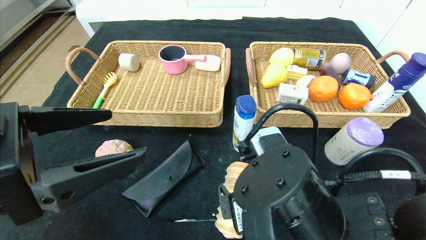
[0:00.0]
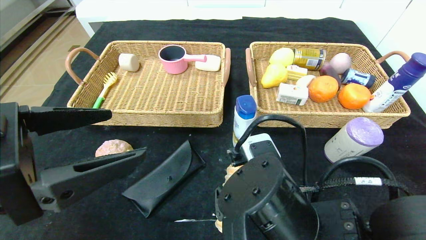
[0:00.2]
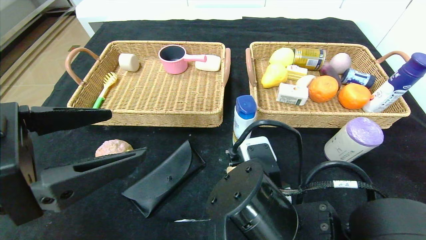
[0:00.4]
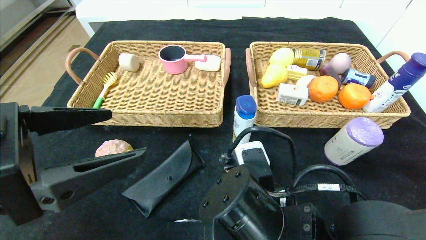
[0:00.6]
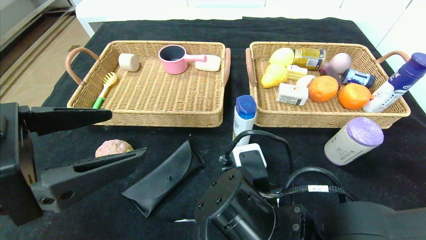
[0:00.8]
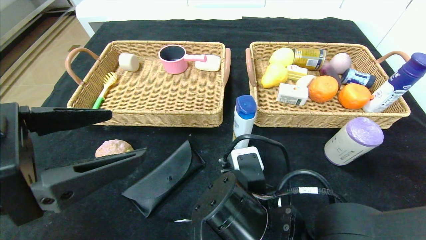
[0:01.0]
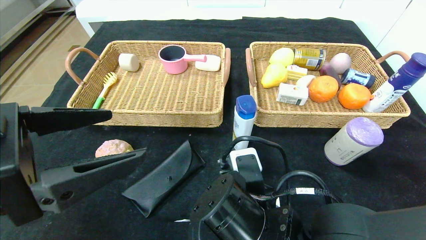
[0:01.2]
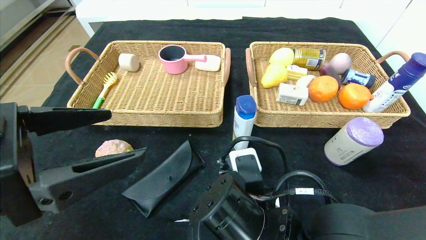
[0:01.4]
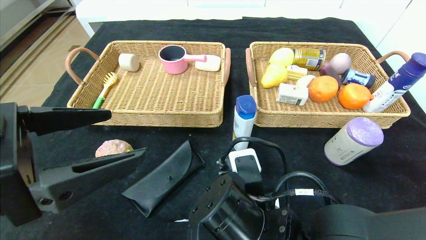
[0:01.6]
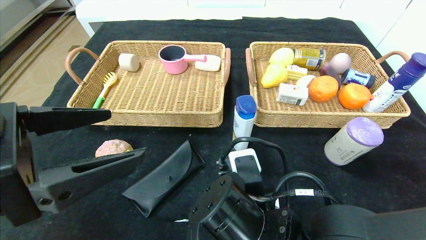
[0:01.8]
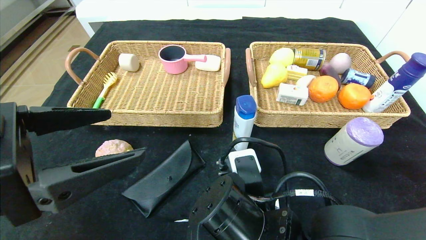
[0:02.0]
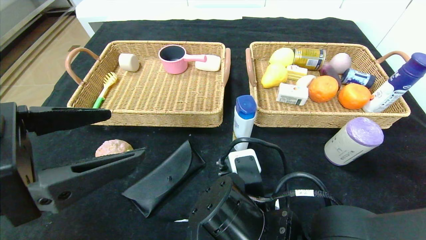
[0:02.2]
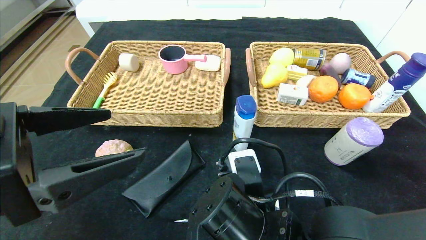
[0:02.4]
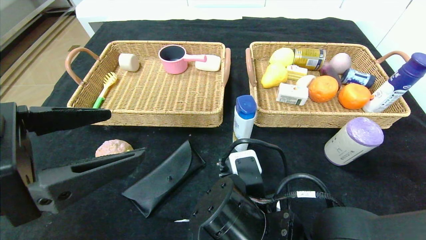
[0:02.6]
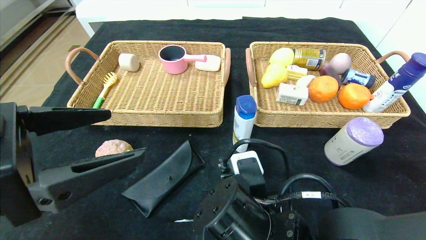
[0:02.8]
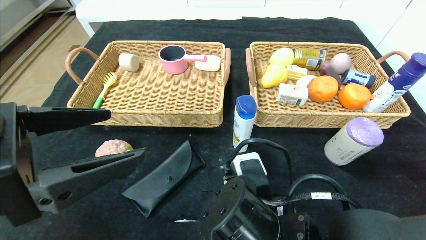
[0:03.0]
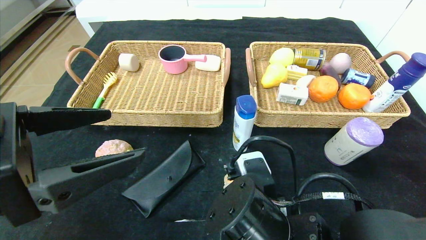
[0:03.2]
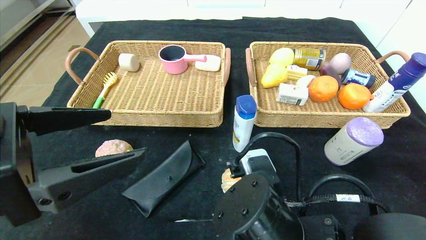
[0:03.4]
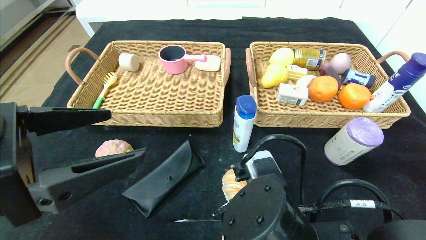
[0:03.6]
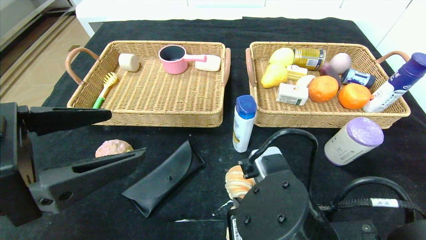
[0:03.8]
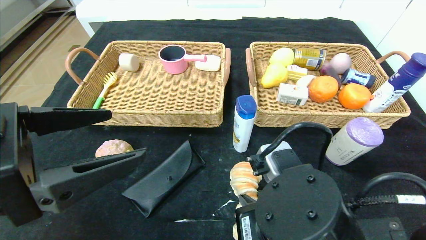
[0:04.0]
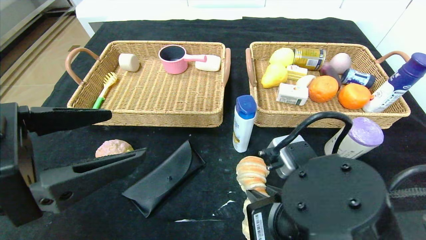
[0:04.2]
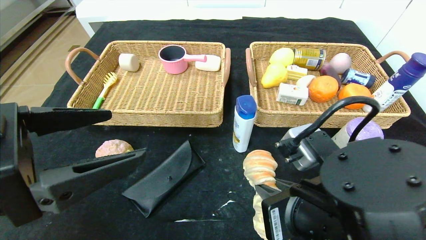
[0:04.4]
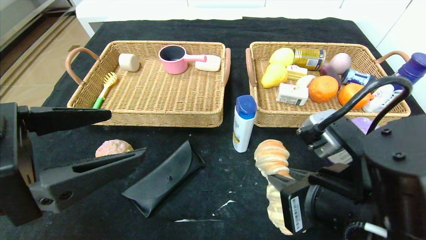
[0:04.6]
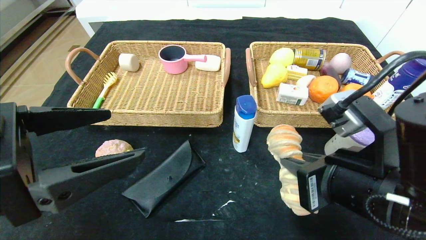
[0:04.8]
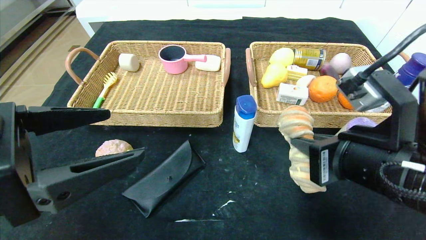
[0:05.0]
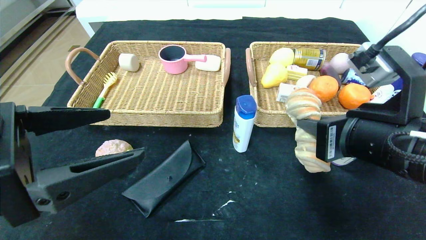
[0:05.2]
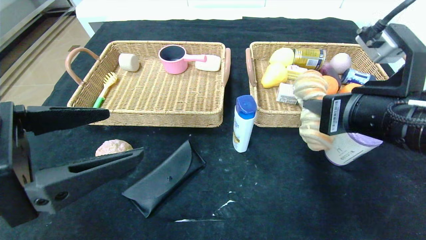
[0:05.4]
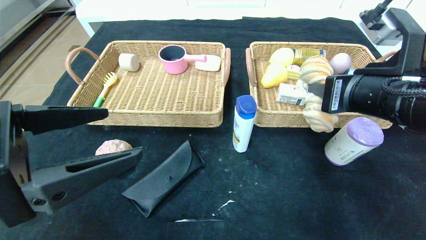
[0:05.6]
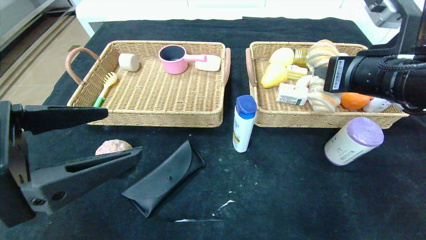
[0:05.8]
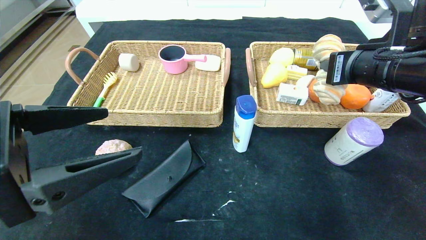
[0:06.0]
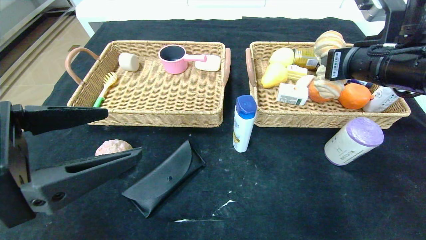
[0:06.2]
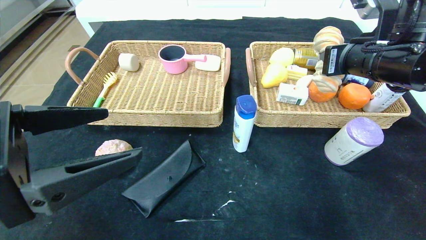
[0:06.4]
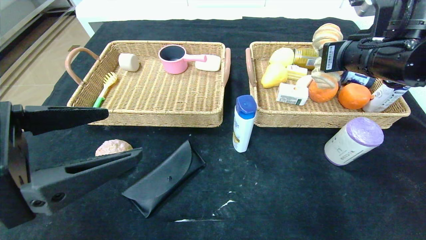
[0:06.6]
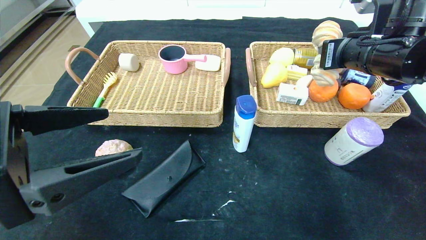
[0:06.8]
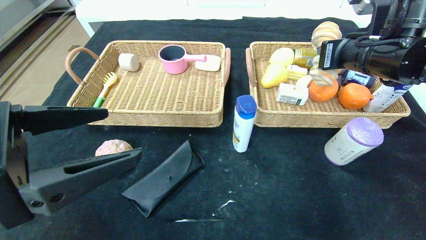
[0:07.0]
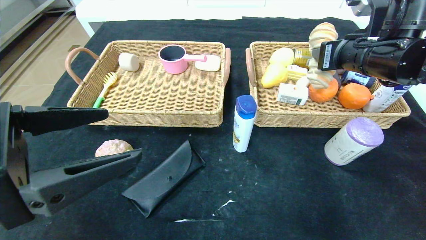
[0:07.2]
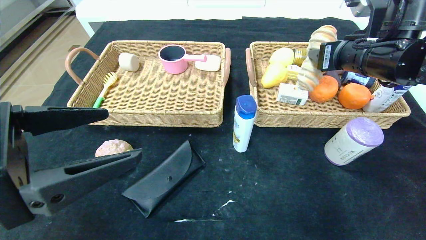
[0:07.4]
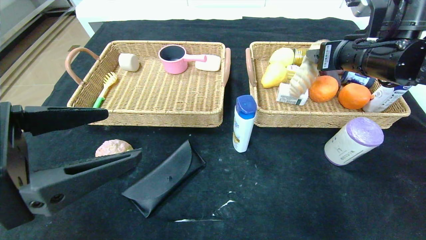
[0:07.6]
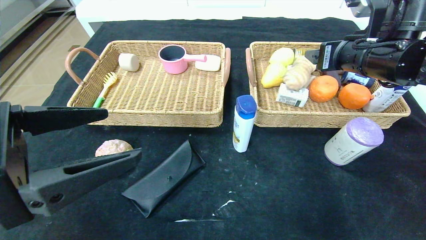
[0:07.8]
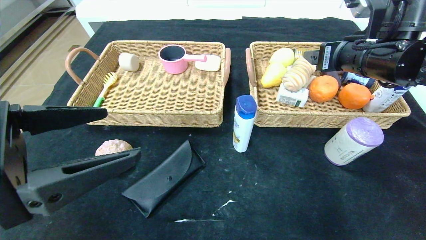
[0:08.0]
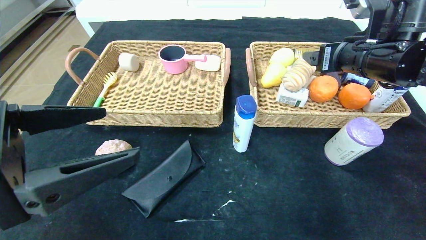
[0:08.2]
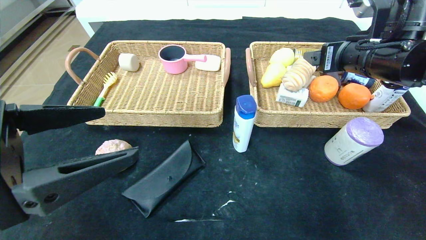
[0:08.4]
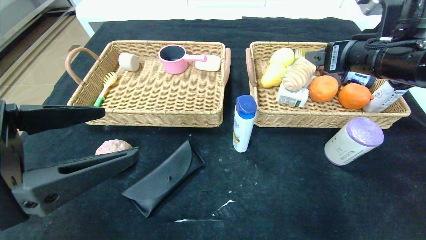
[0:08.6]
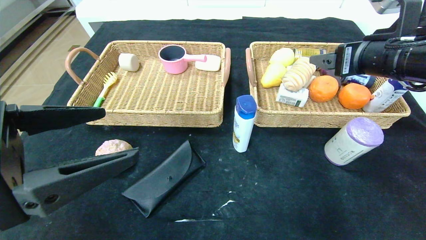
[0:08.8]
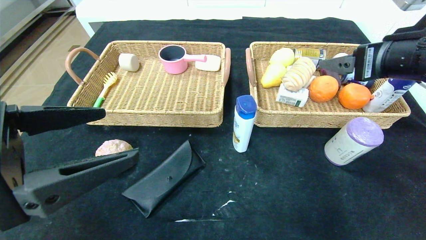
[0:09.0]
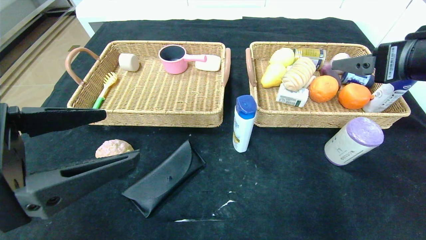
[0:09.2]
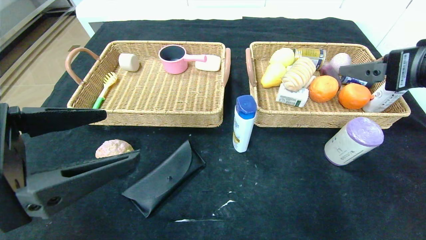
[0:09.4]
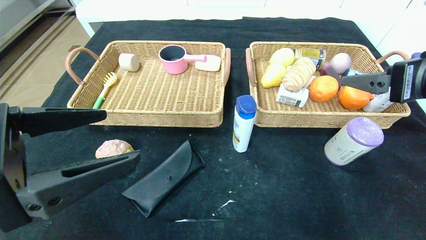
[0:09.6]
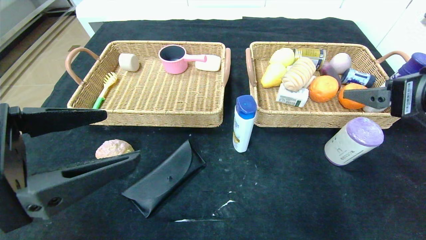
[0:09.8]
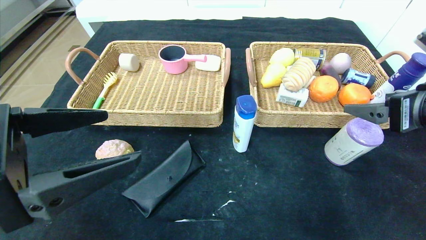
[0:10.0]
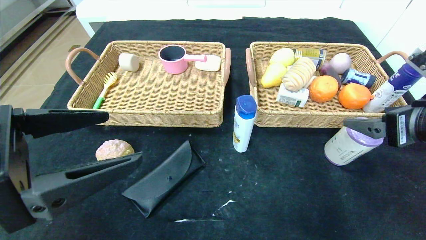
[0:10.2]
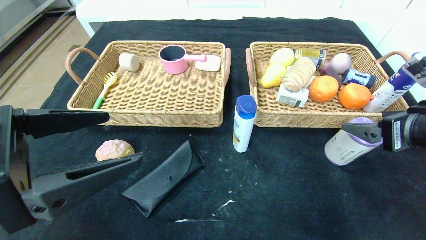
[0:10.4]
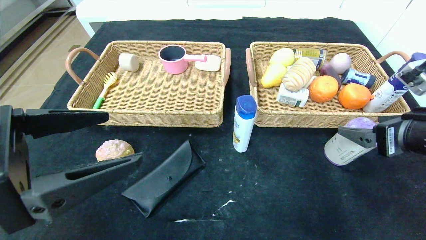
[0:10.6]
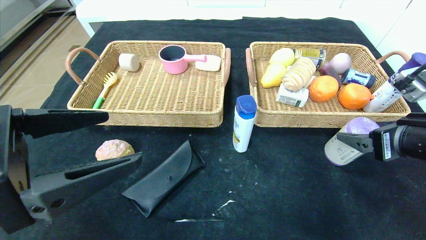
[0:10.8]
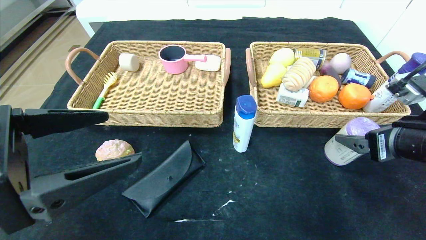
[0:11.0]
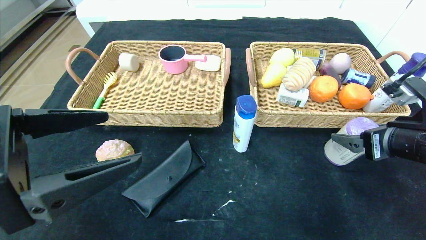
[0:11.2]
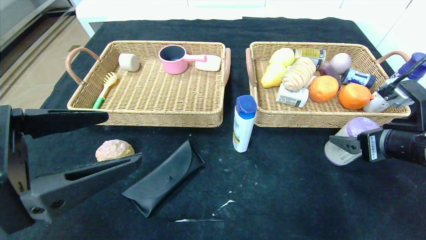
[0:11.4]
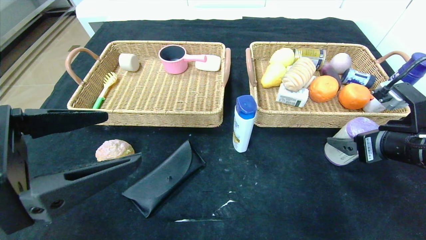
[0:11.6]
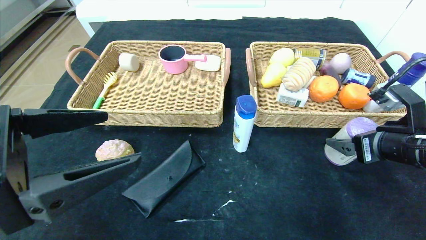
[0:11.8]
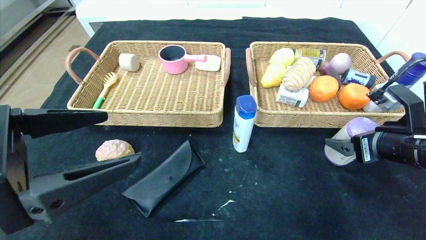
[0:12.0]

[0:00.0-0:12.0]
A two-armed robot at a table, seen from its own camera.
Step, 0:00.0 to 0:10.4: Pick up the long bread and put it in the right basket.
0:00.0 to 0:01.6: The right gripper moves approximately 5 cm, and closes up.
0:01.6 to 0:03.0: The right gripper closes up.
0:03.0 to 0:04.4: The right gripper is displaced to the right and upward by approximately 10 cm.
0:04.4 to 0:06.0: The right gripper is displaced forward, upward and to the right by some 20 cm.
0:06.0 to 0:07.6: The right gripper is displaced forward by approximately 5 cm, and opens up.
0:07.6 to 0:09.0: The right gripper goes some 5 cm backward.
0:09.0 to 0:10.4: The right gripper travels downward by some 5 cm.
0:10.4 to 0:12.0: The right gripper shifts by approximately 5 cm.

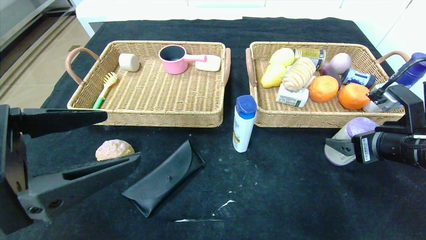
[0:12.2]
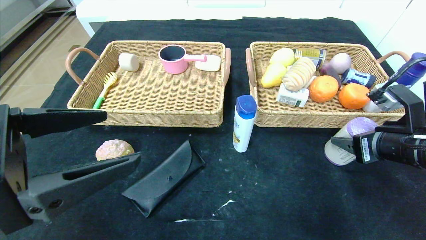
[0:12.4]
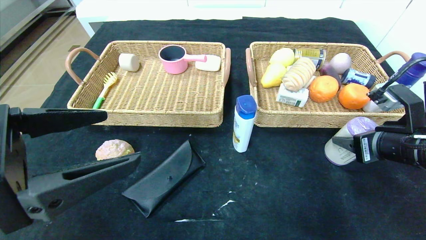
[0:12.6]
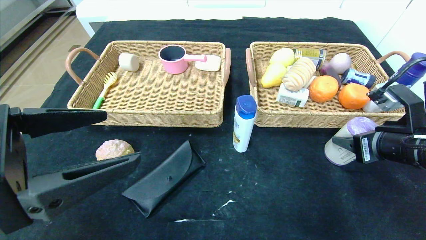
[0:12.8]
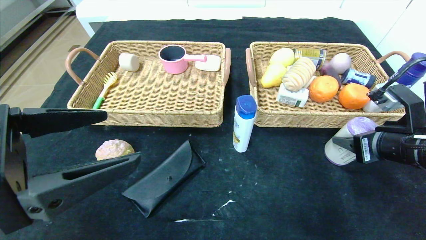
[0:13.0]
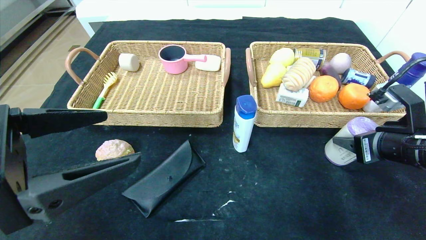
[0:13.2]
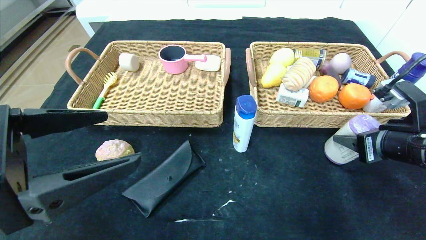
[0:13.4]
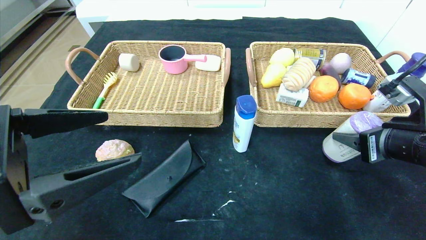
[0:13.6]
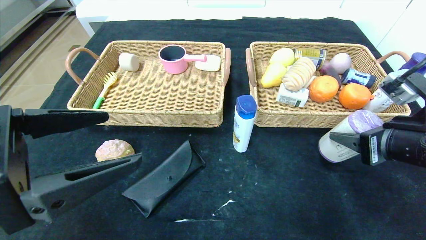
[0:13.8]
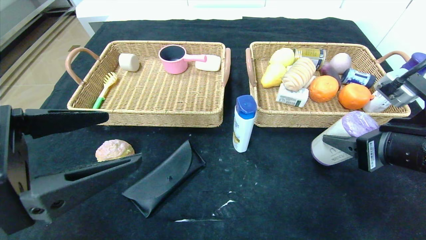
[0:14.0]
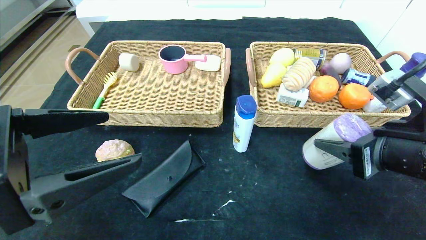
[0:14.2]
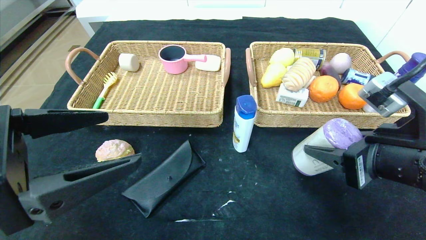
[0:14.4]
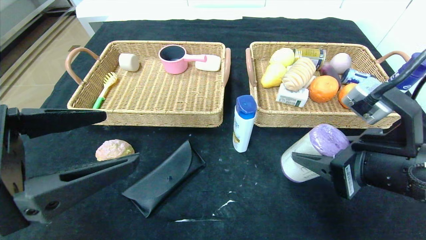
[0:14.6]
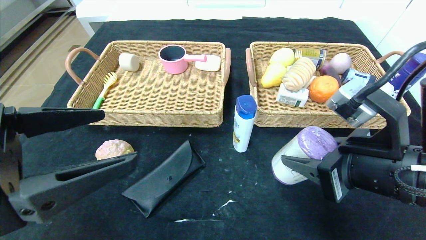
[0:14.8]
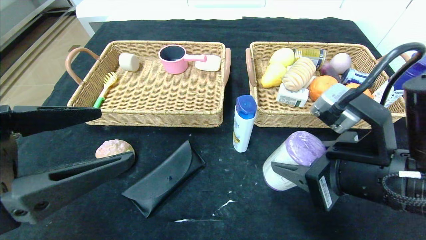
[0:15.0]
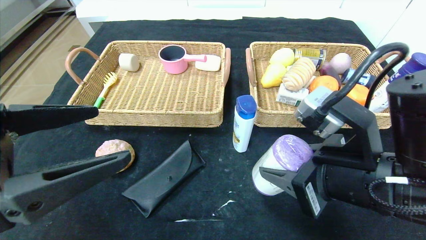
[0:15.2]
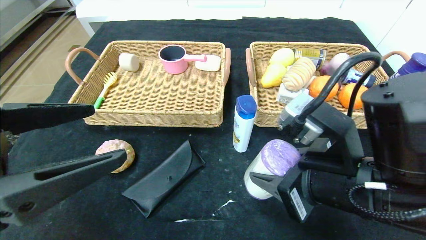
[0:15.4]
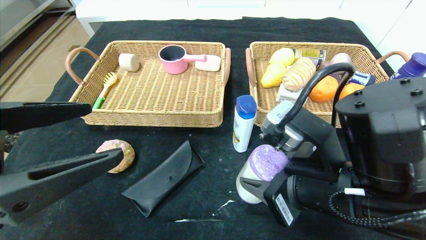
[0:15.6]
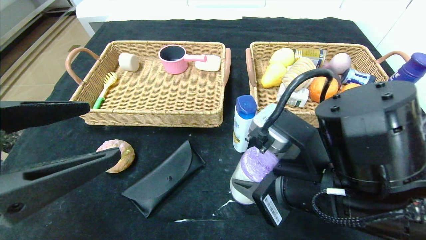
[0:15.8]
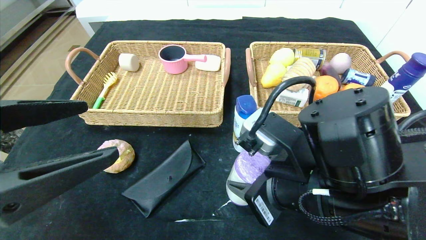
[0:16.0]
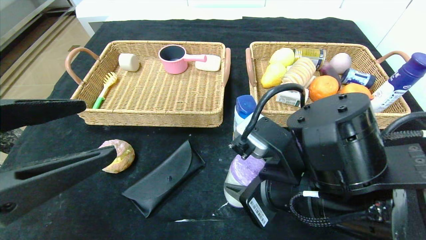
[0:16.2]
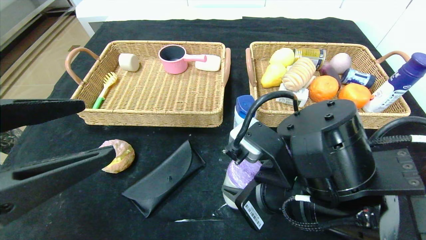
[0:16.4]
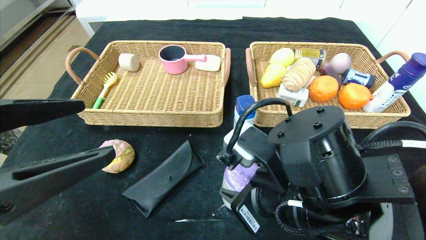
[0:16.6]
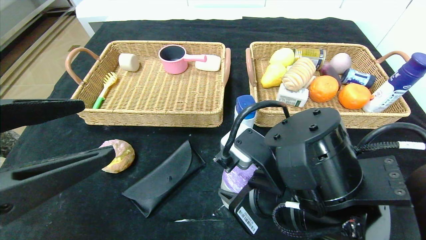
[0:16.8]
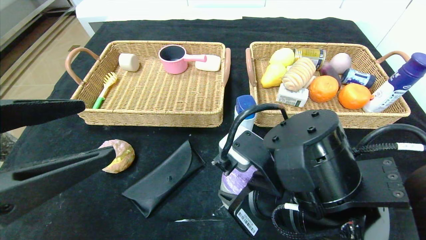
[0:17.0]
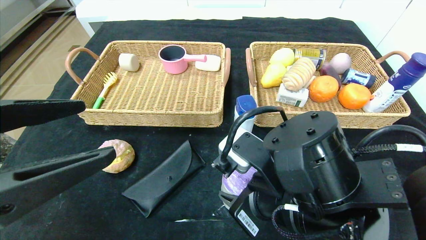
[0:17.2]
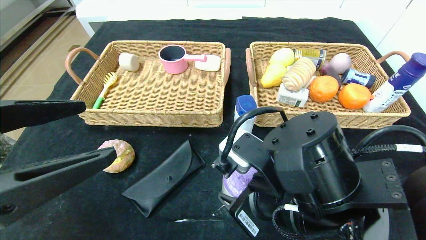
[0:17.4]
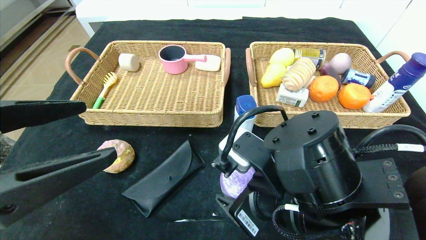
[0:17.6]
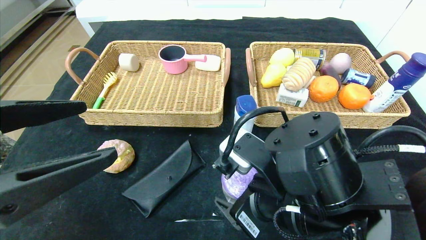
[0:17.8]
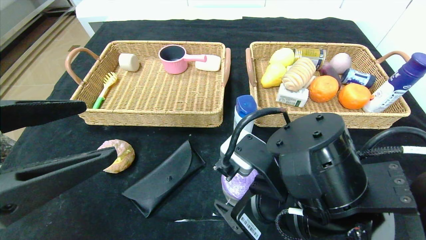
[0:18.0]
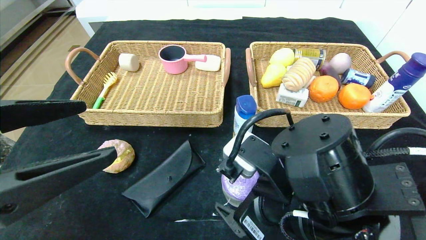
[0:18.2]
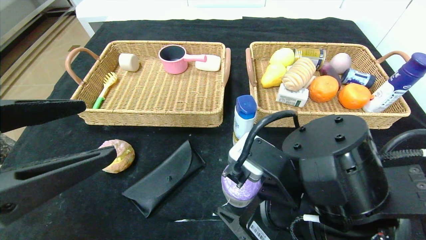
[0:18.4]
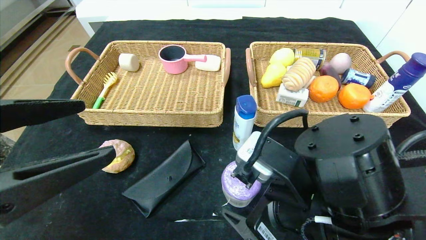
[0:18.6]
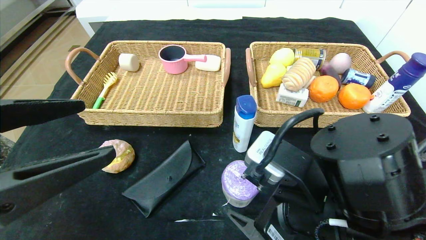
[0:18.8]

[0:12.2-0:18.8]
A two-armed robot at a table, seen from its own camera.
0:12.2 to 0:13.8: The right gripper closes its fingers.
0:13.8 to 0:15.4: The right gripper shifts roughly 15 cm to the left.
0:15.4 to 0:17.2: The right gripper shifts about 5 cm to the left.
0:17.2 to 0:18.8: The right gripper opens up.
